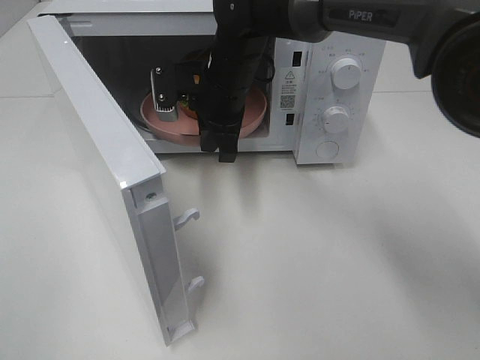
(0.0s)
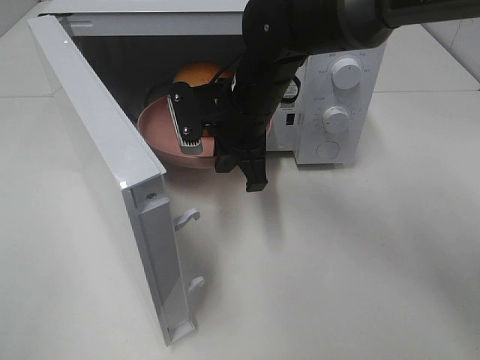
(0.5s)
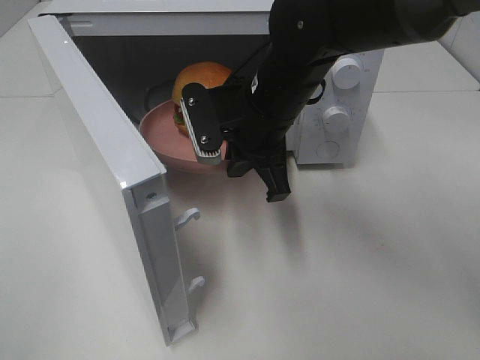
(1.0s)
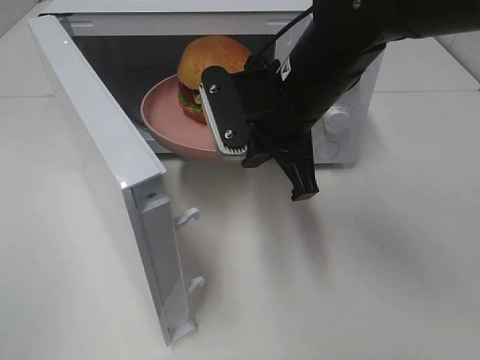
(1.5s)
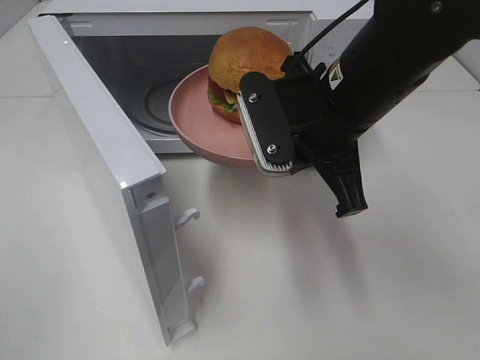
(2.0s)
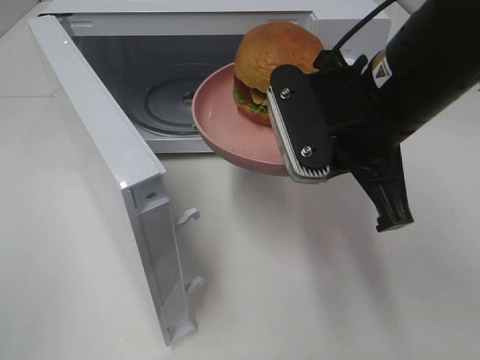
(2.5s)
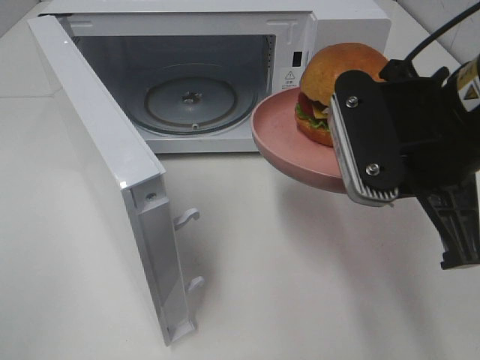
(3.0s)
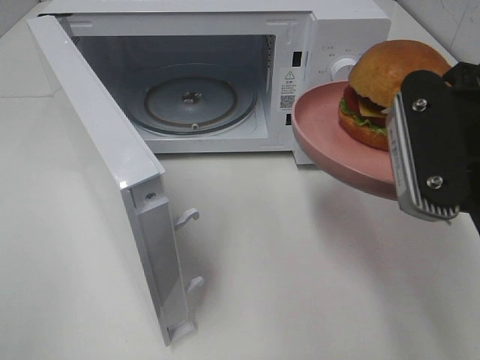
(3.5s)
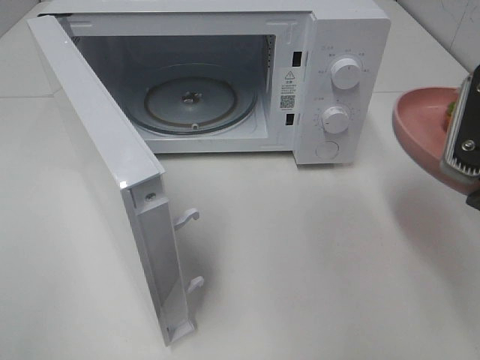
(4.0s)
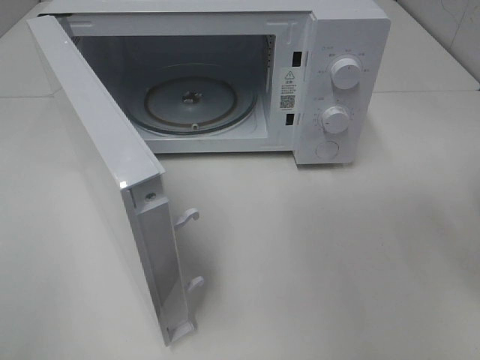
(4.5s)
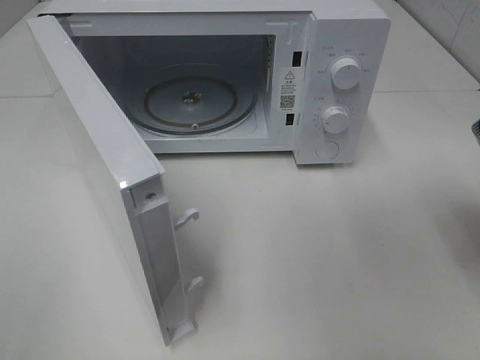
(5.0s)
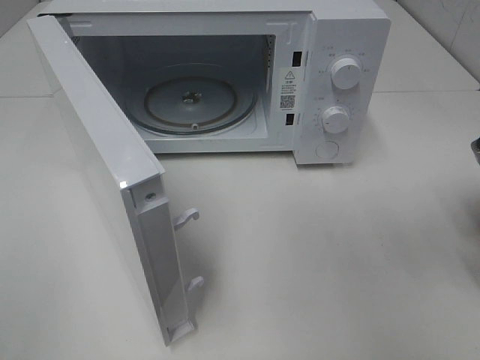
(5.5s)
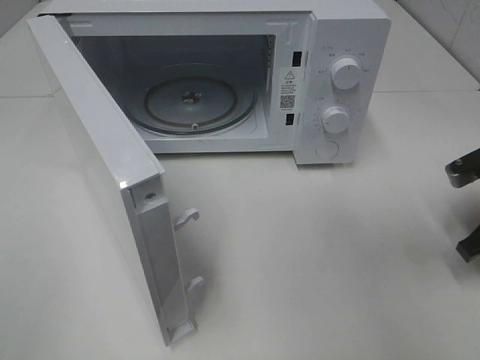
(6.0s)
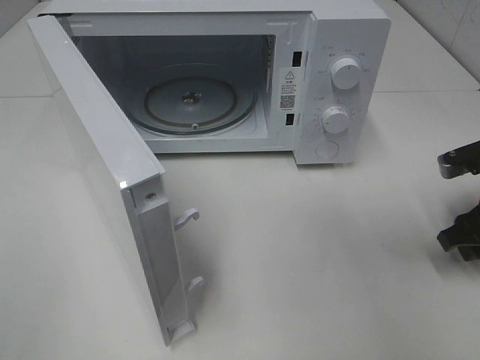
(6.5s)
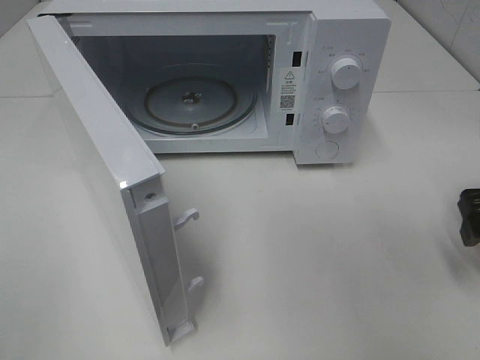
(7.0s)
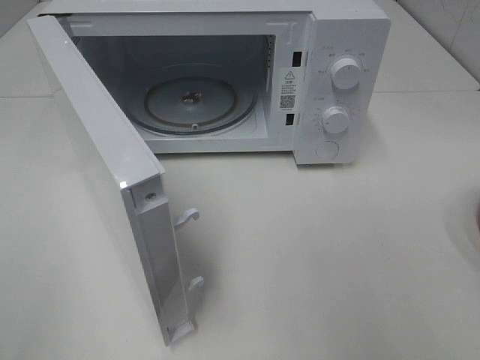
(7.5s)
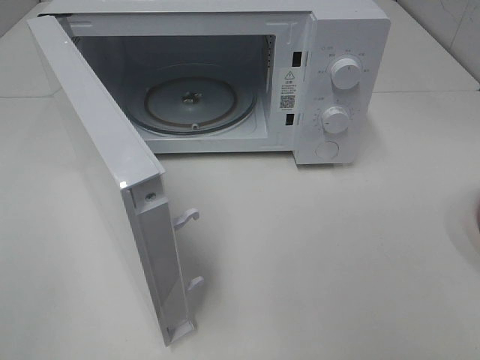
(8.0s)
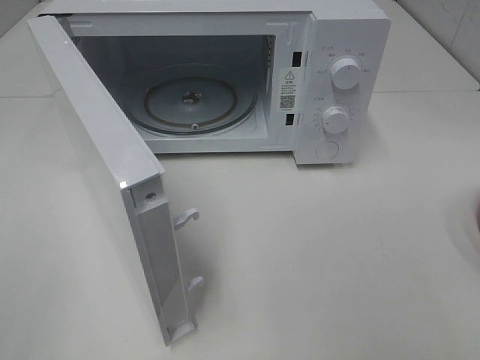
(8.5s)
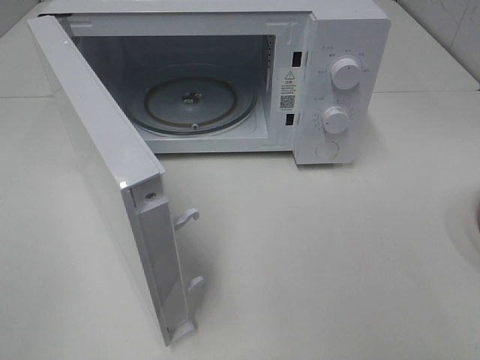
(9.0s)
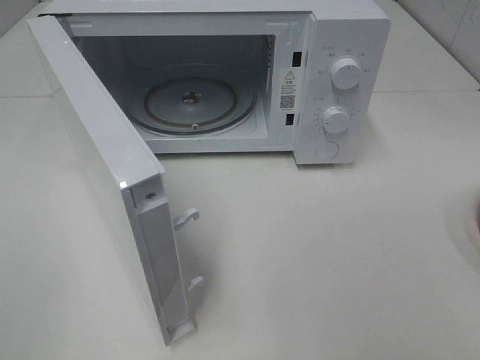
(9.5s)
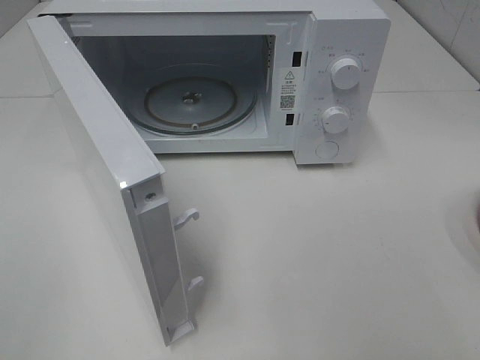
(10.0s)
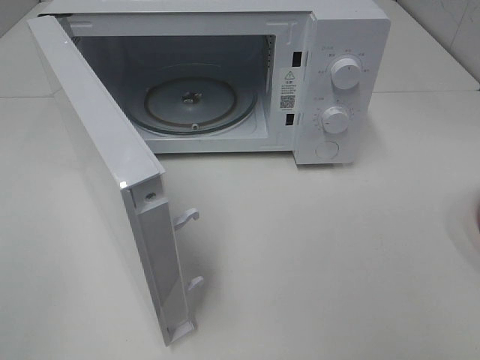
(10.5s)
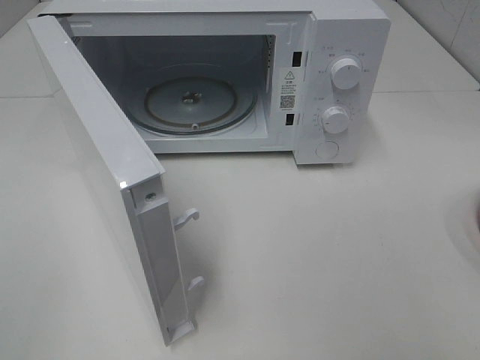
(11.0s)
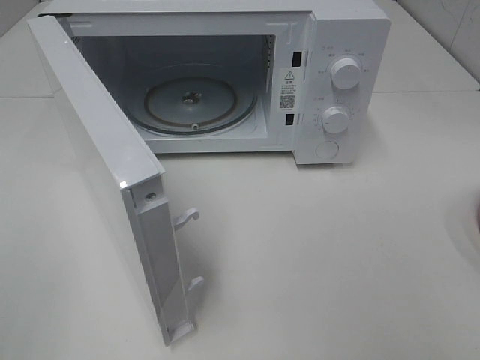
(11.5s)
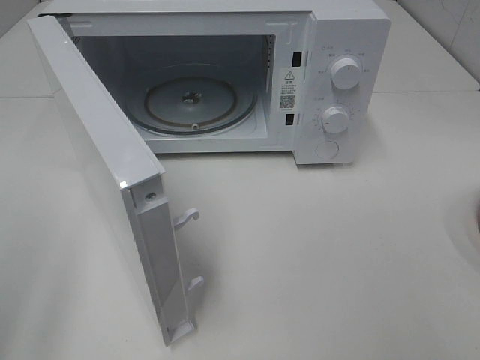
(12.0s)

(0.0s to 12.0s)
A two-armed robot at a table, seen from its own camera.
Task of the whole recording: Heat the burger.
Step, 0.0s - 6.0s: Right hand: place the plate on the table.
0.0s - 2.0s: The right gripper heads backward, to the right and upward, covering about 20 cm.
2.0s - 4.0s: The right gripper goes approximately 15 cm to the right and backward.
4.0s - 6.0s: The right gripper is displaced downward, forward and to the right by about 20 cm.
6.0s - 8.0s: The right gripper travels backward and upward by approximately 30 cm, and opens its fingers.

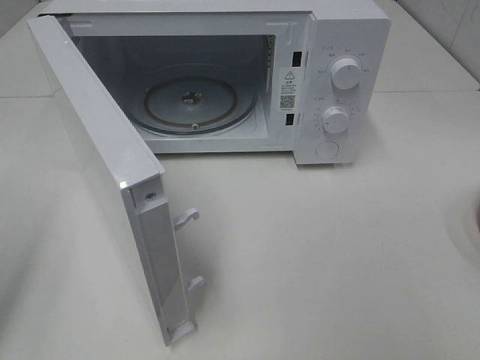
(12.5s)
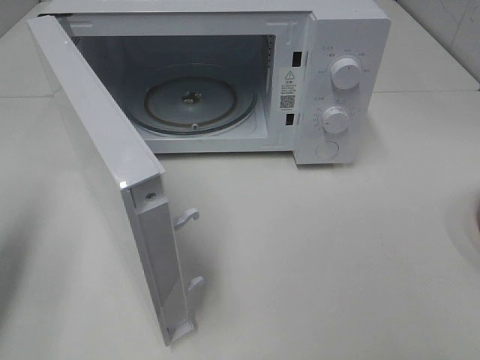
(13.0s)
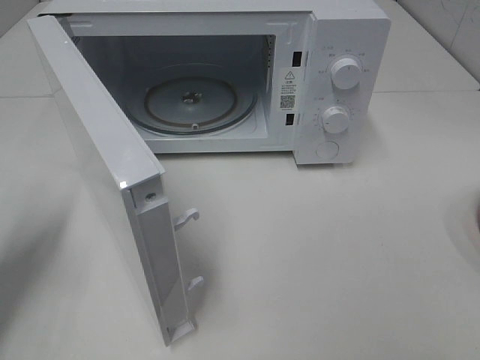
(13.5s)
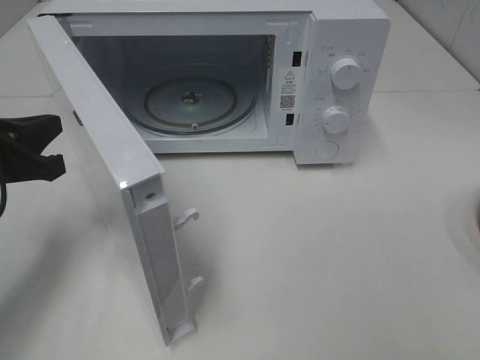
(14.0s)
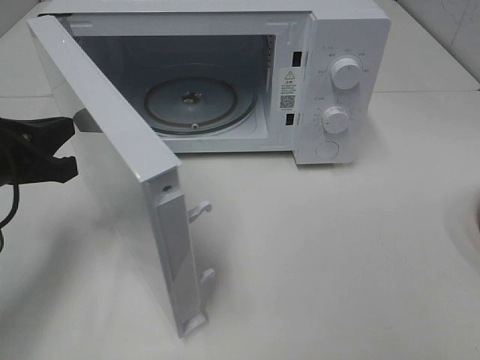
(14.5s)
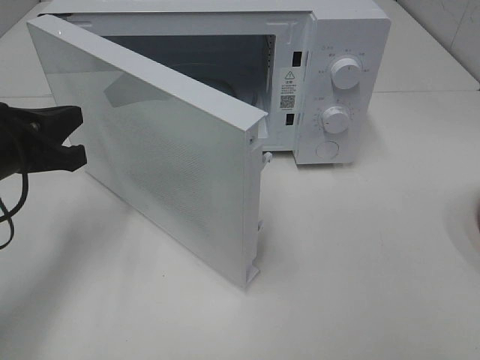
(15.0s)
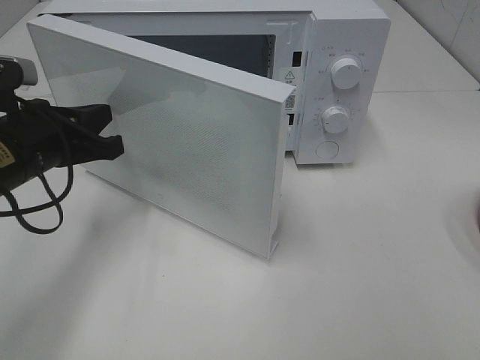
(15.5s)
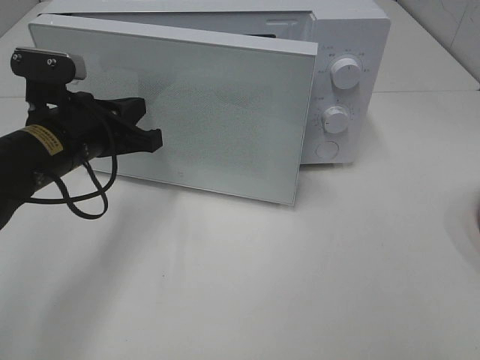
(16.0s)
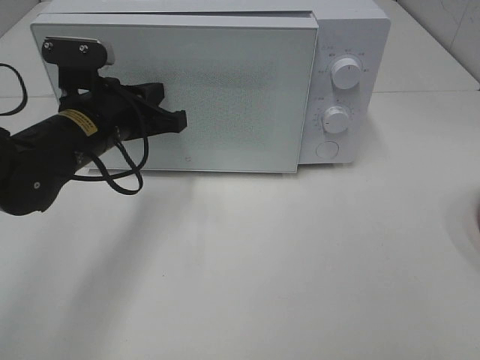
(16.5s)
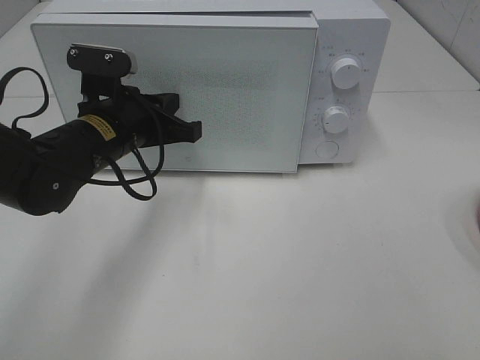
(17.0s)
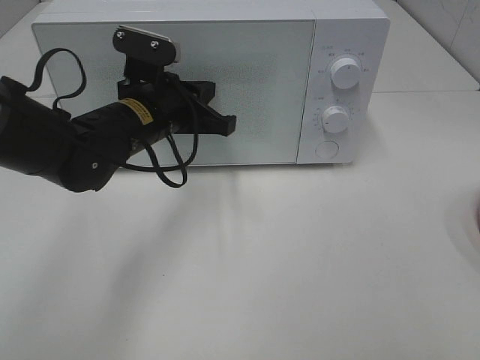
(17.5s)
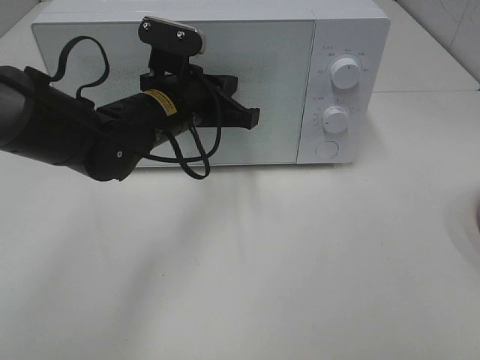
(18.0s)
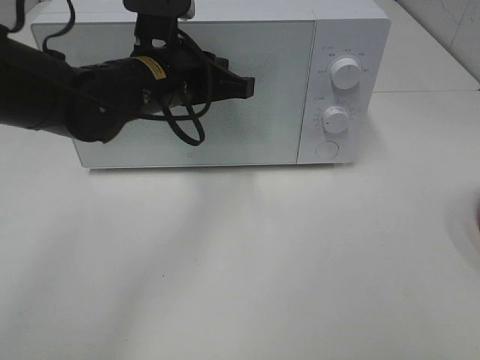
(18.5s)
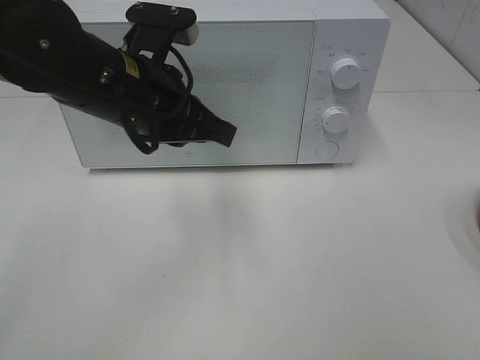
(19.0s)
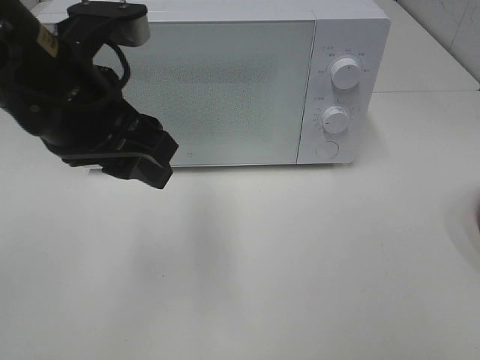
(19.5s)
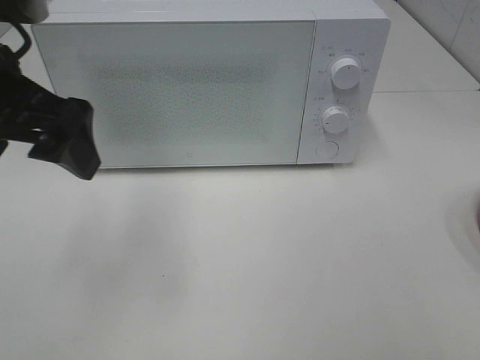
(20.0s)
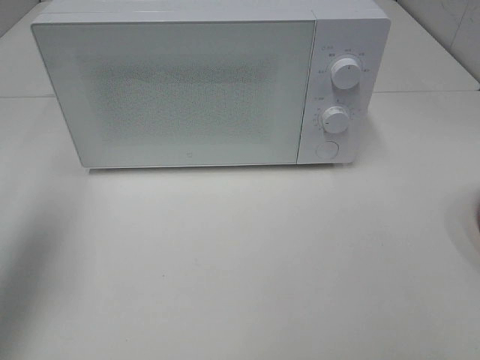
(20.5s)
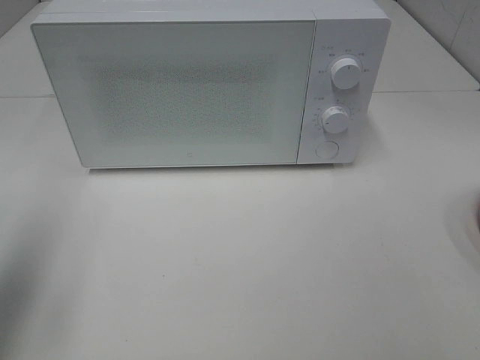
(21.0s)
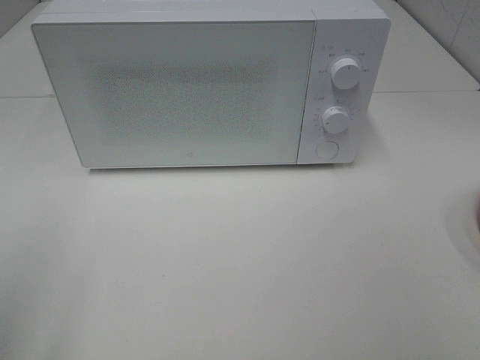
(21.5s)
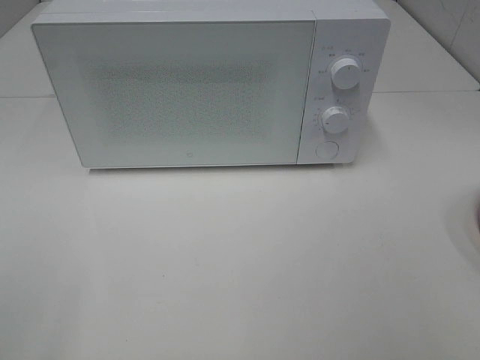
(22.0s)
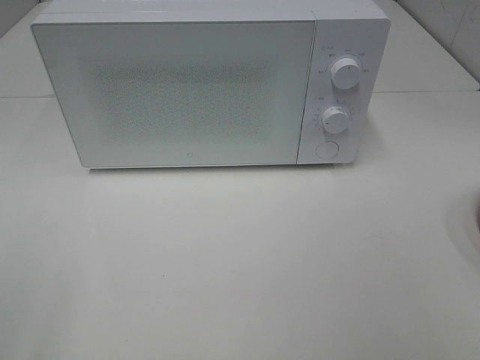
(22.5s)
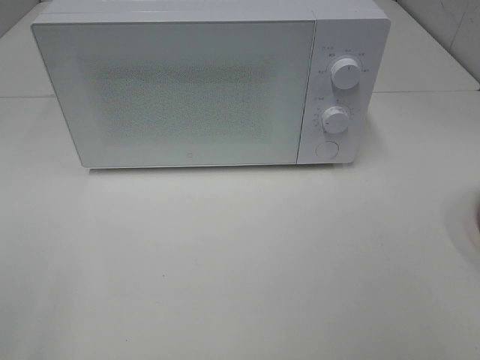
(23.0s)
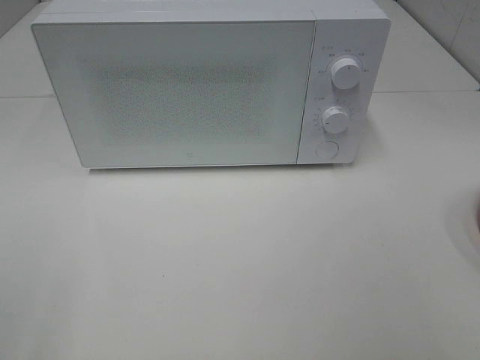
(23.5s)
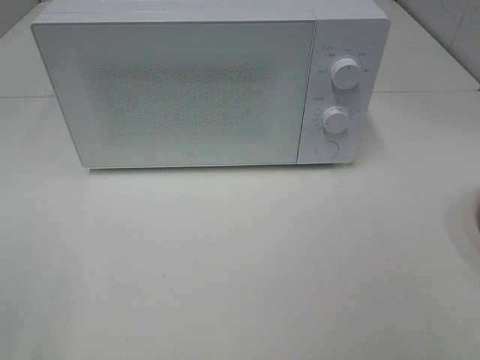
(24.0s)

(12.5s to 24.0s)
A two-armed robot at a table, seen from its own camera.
Task of the whole recording: Heat the burger.
Step, 12.5s - 17.5s: Left hand: close the microwave door.
12.5s - 14.5s: The left gripper heads forward, downward and to the right, covering about 15 cm, and closes its fingers.
14.5s - 16.5s: The left gripper shifts roughly 10 cm to the right and forward.
16.5s - 18.5s: The left gripper goes approximately 5 cm to the right.
18.5s - 20.0s: The left gripper shifts some 20 cm to the left, backward and upward, and opens.
20.0s - 22.0s: The left gripper heads backward and to the left, covering some 25 cm.

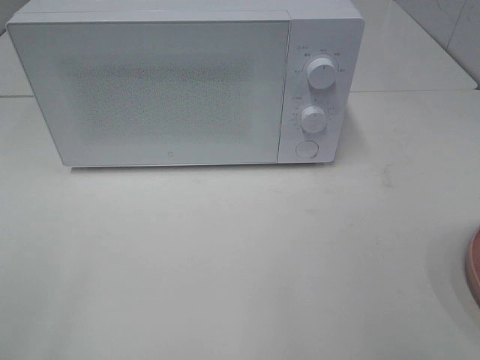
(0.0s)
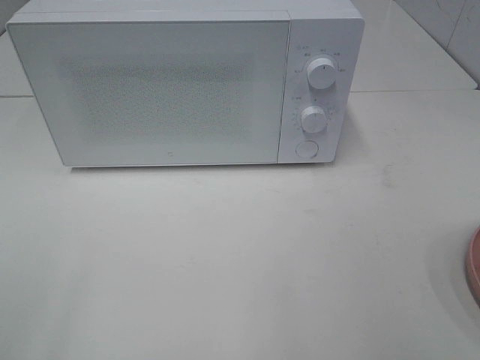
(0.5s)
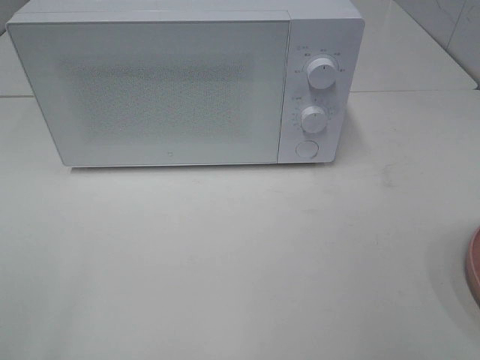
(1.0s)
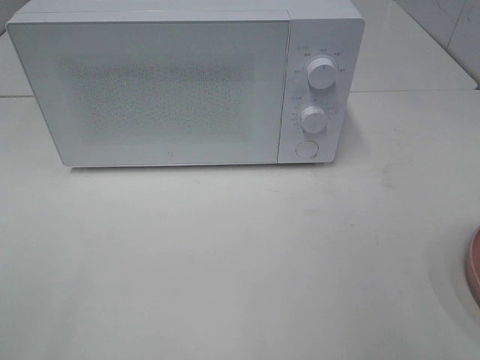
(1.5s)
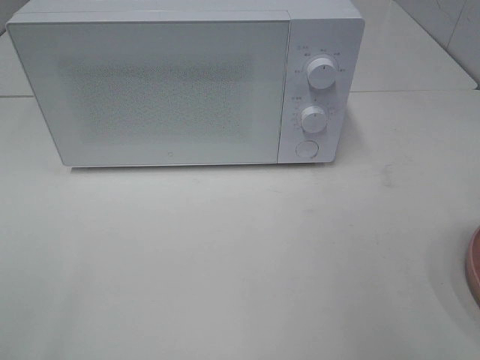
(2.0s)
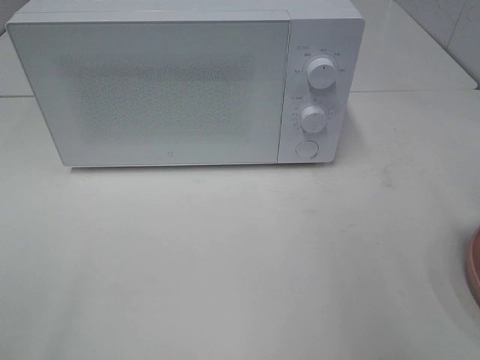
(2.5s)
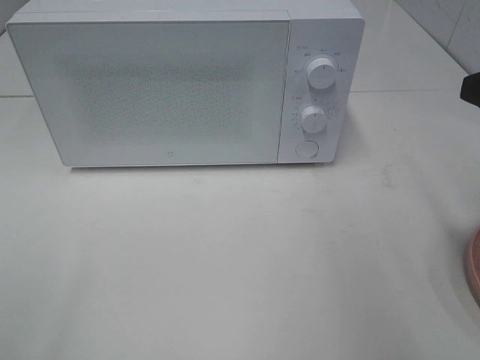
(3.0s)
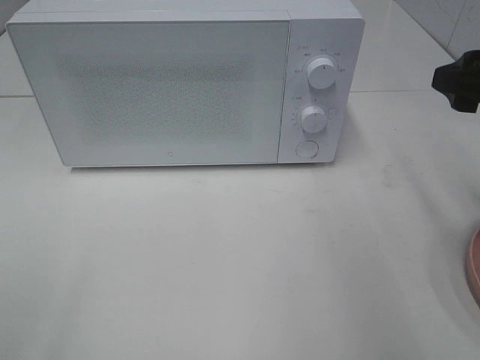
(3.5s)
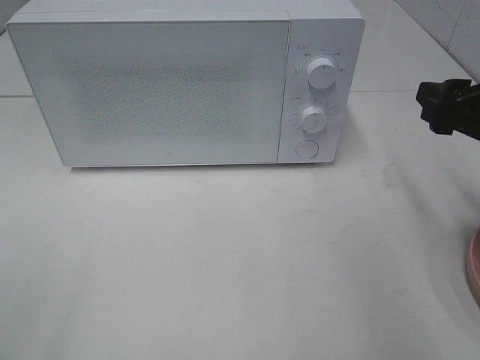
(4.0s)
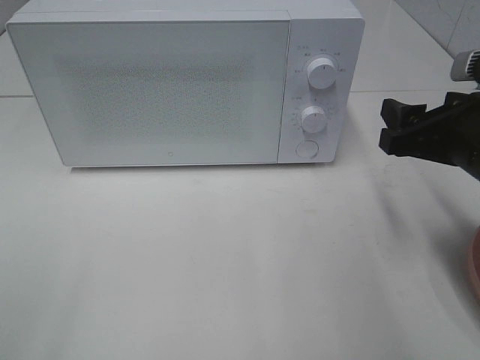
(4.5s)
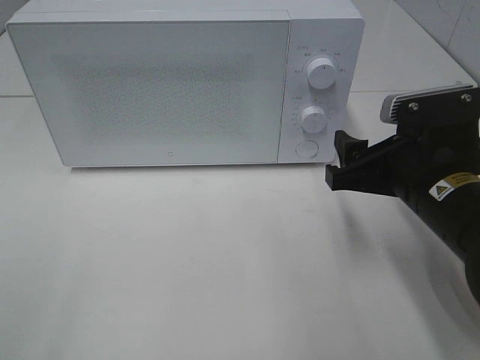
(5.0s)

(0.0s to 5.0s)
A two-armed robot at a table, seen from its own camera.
Task of the whole recording: Heat the burger.
2.5s - 5.0s: The right gripper moves downward, to the left and forward, some 15 cm.
